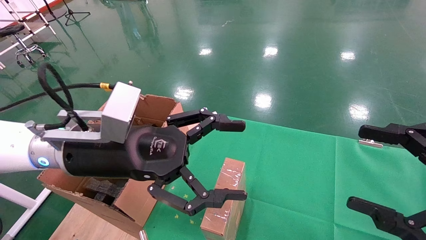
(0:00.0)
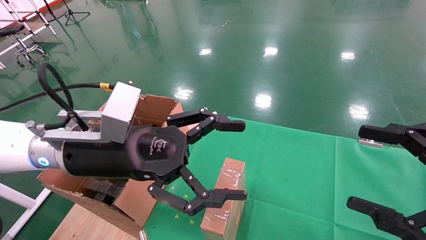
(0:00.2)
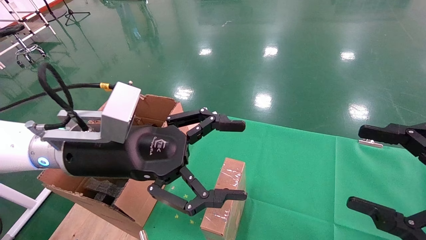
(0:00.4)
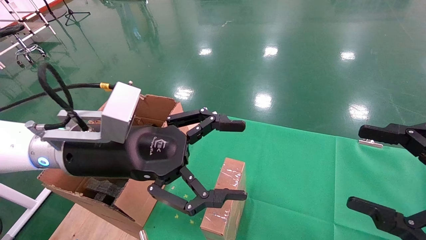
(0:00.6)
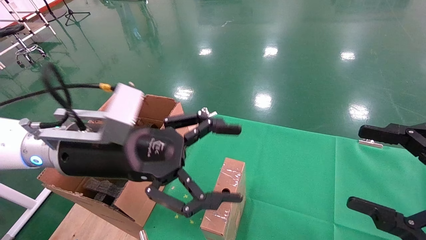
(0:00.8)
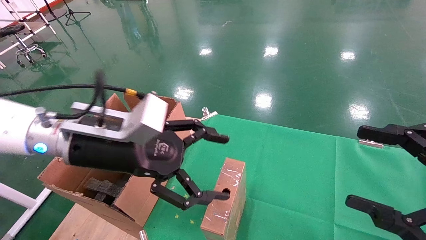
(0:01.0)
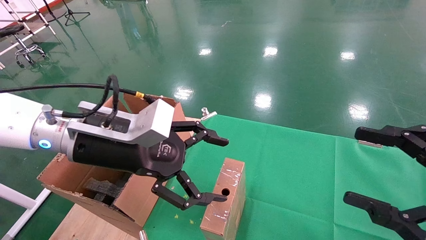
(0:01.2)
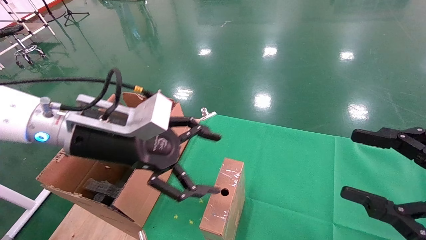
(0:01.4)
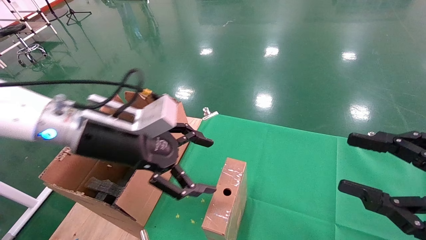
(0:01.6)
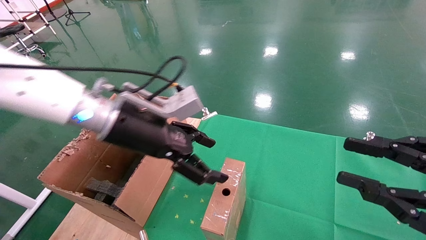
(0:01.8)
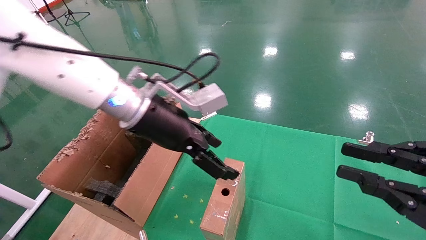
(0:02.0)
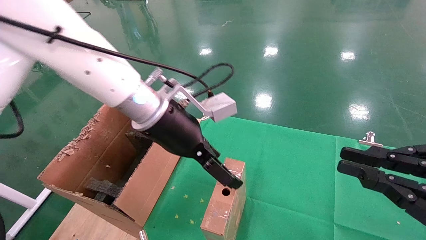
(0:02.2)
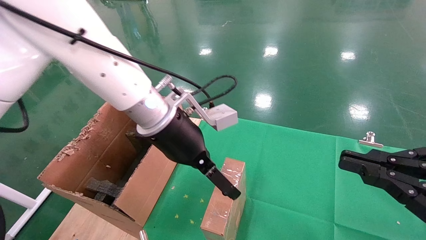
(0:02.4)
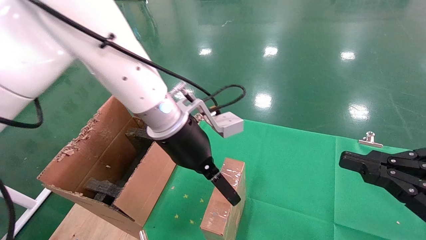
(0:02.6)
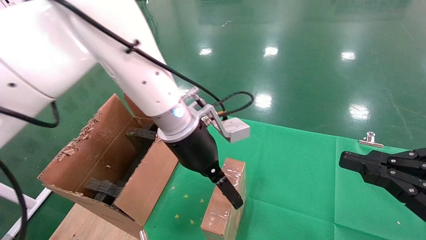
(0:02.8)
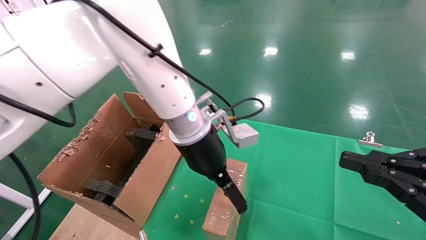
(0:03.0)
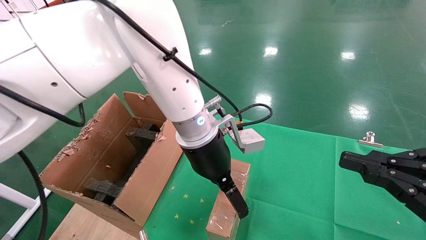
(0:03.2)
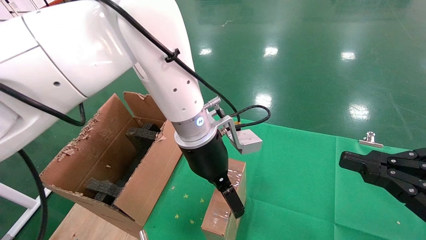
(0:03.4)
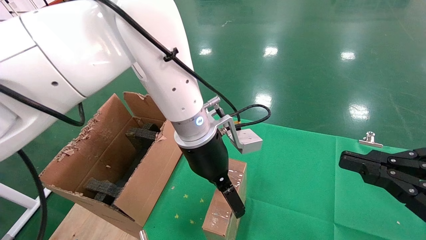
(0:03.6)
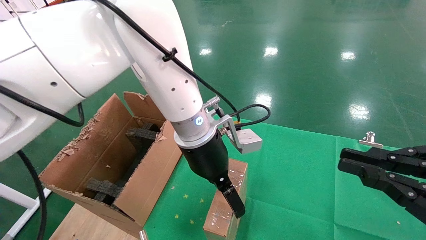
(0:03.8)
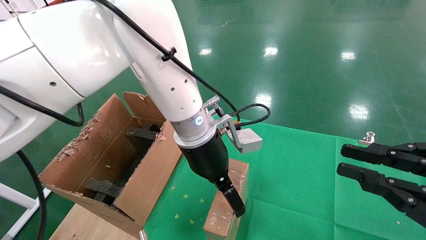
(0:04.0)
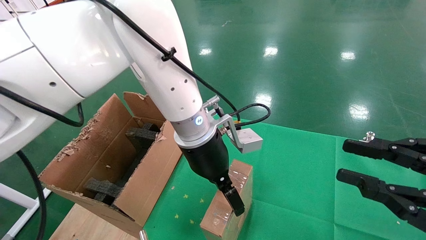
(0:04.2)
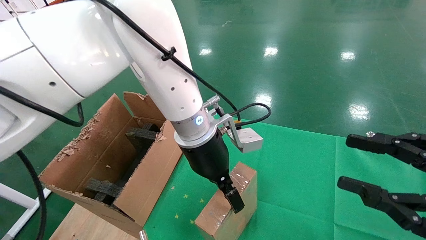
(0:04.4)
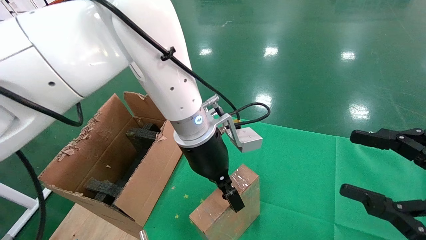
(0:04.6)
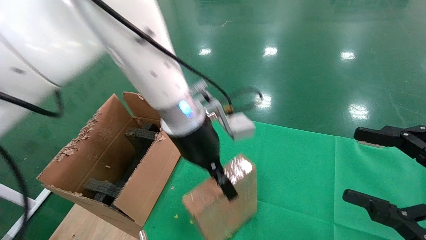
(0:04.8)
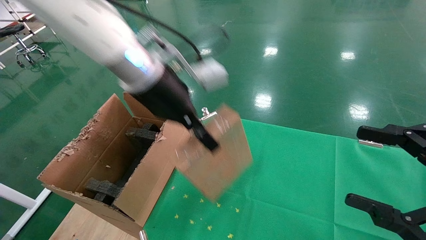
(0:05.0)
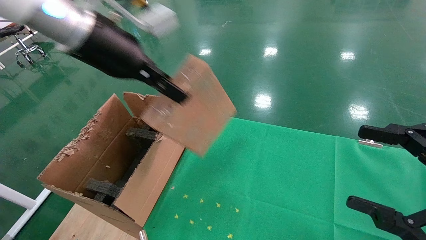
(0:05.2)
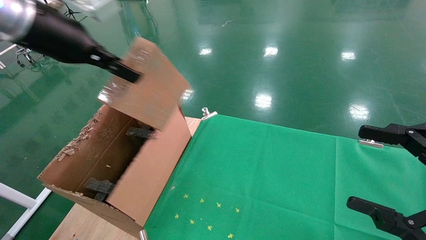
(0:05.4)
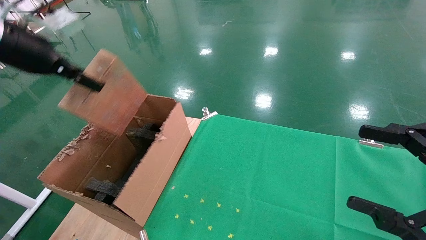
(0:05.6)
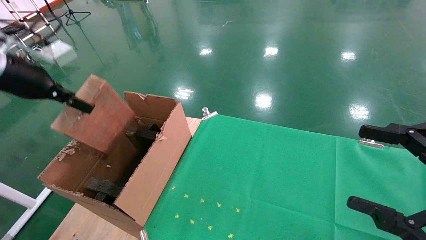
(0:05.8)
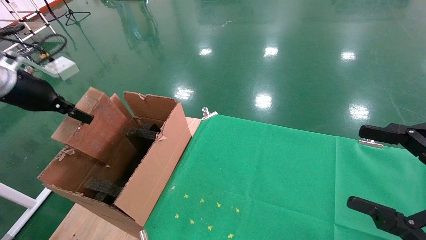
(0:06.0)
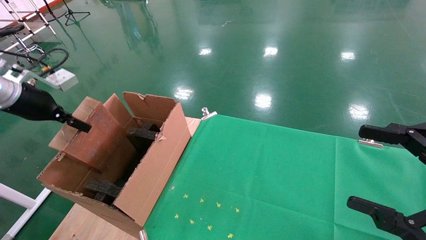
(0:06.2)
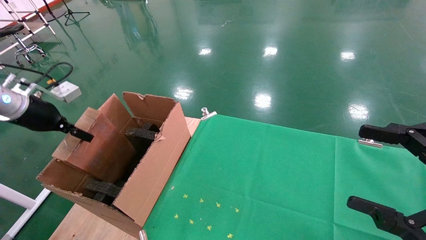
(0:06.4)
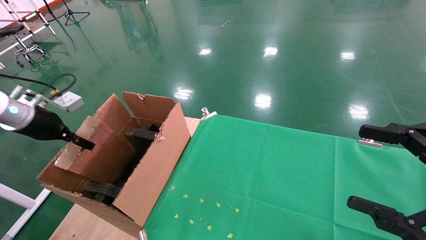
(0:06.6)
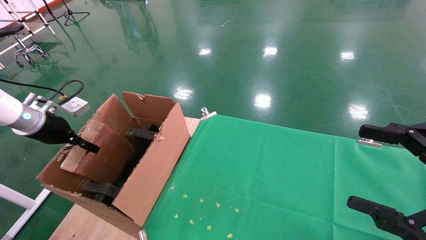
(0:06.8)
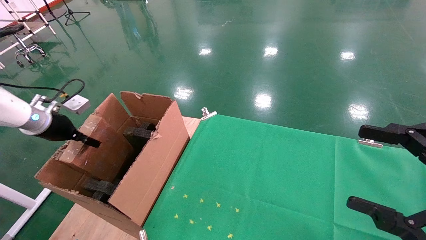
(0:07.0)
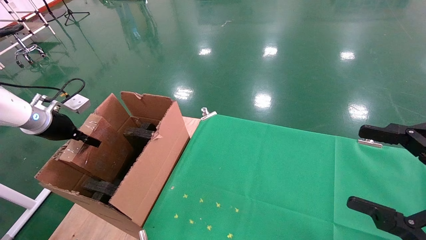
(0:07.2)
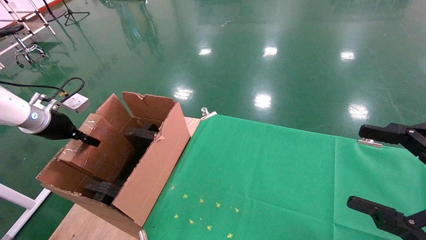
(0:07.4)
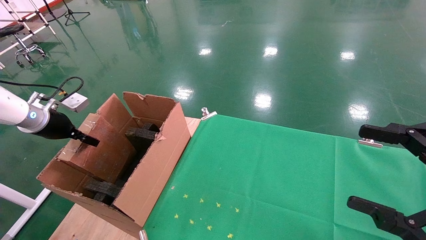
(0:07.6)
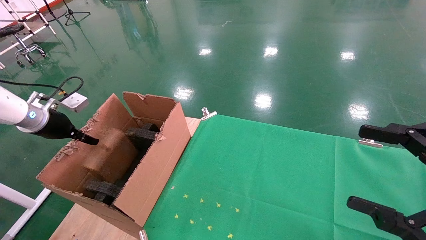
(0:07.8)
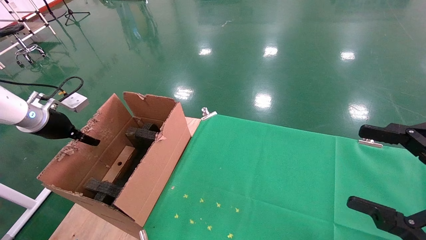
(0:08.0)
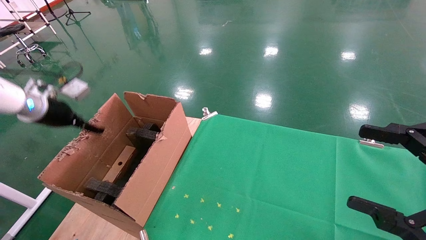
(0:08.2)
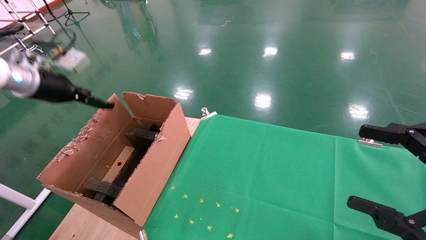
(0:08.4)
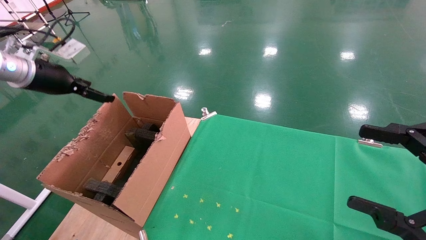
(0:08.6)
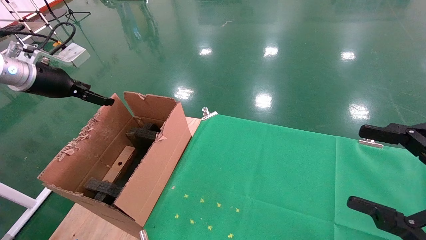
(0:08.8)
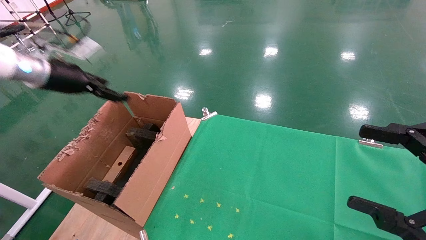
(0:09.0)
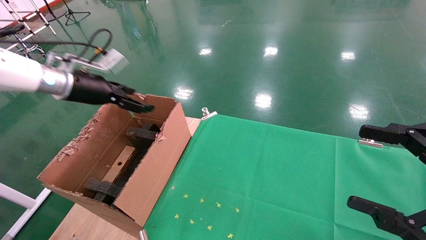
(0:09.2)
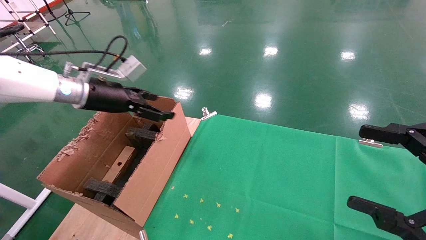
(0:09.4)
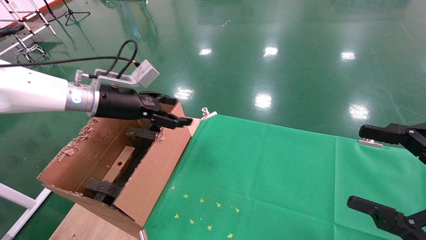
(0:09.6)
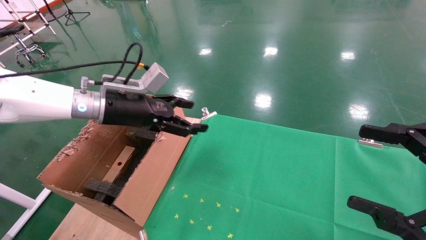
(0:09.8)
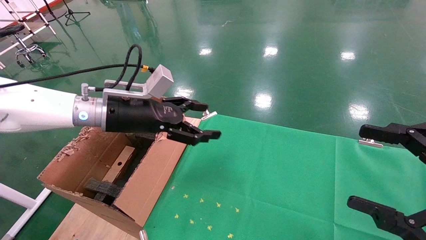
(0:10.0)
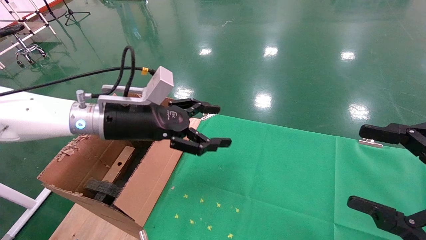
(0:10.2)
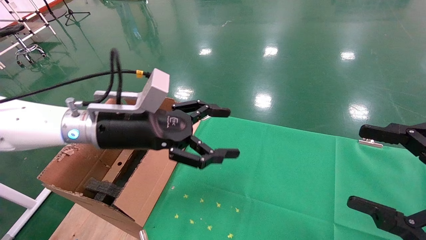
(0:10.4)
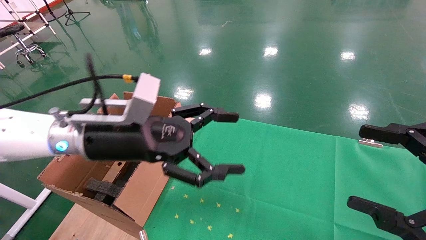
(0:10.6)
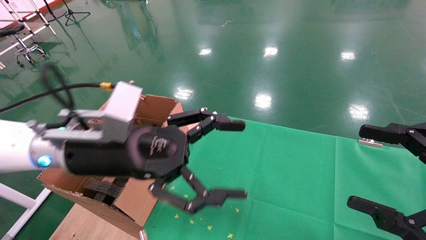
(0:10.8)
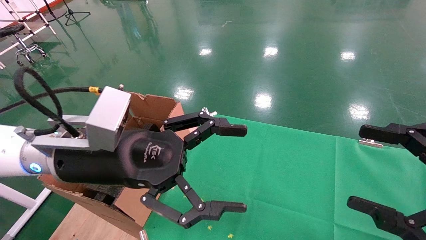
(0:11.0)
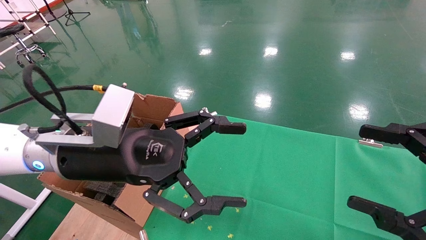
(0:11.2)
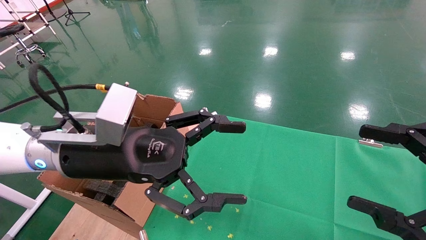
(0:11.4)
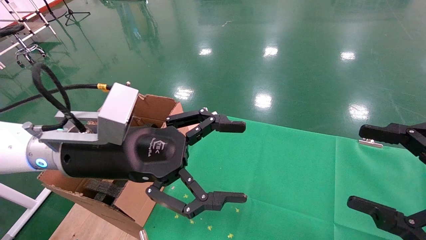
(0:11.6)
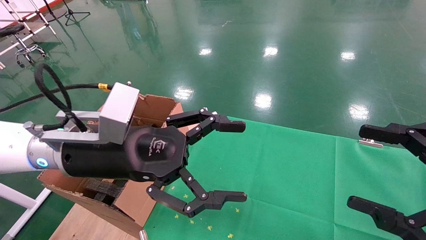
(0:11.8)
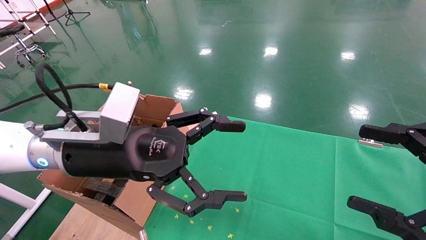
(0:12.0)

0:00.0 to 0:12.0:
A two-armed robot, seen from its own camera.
Task of the whole recording: using a robotic arm to pick up a cardboard box and palace it the carton.
Step, 0:00.8 to 0:04.4: Pick up the mouse and the power cord paper box.
Step, 0:04.6 to 0:08.0: Place the mouse and the power cord paper box into the container.
0:00.0 to 0:01.6: The right gripper closes.
0:01.6 to 0:03.0: The right gripper closes. The left gripper goes approximately 15 cm to the right and forward.
0:03.0 to 0:04.4: The left gripper closes; the right gripper opens up.
0:04.4 to 0:06.0: The left gripper moves to the left, about 40 cm, and closes its fingers, while the right gripper opens.
0:06.0 to 0:07.6: The left gripper goes roughly 10 cm downward.
0:07.6 to 0:09.0: The left gripper is displaced upward and to the right by approximately 10 cm, and opens up.
0:09.0 to 0:10.4: The left gripper travels to the right by some 20 cm.
0:10.4 to 0:12.0: The left gripper goes approximately 5 cm backward.

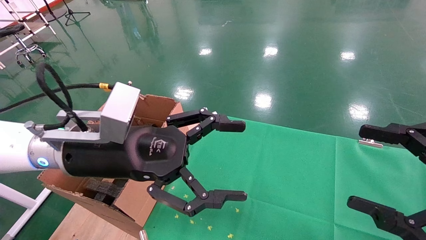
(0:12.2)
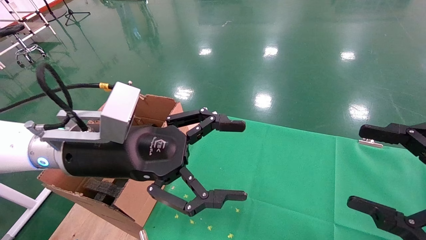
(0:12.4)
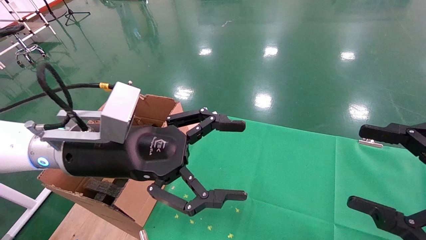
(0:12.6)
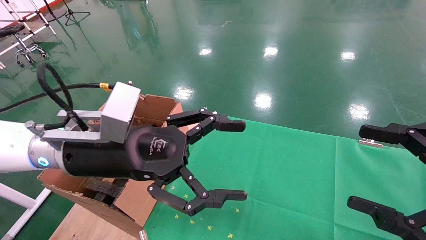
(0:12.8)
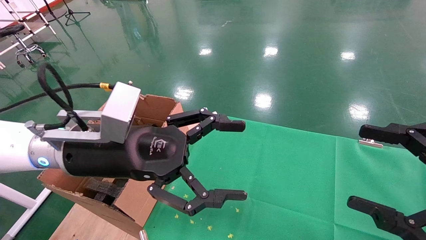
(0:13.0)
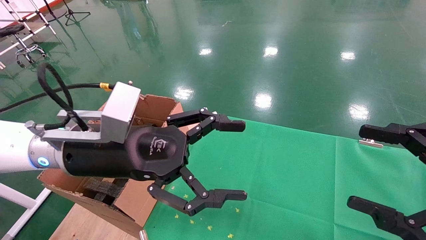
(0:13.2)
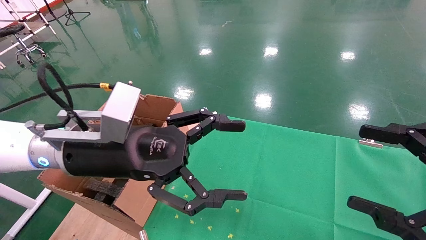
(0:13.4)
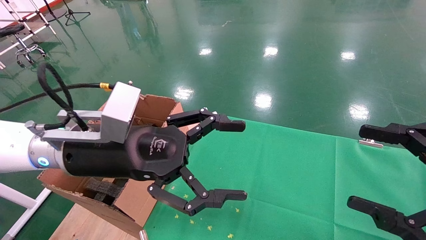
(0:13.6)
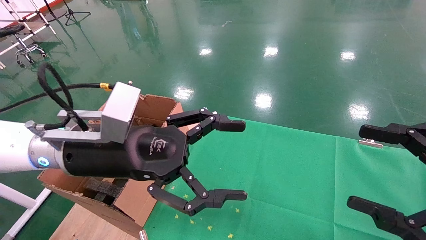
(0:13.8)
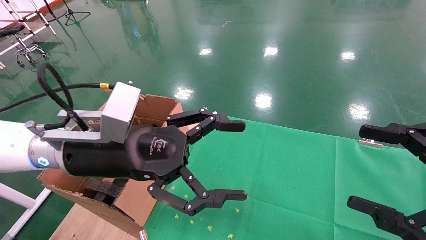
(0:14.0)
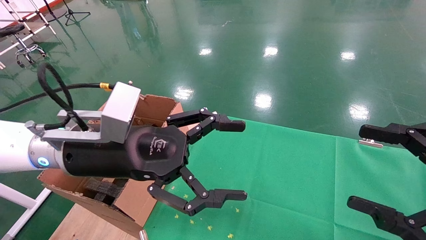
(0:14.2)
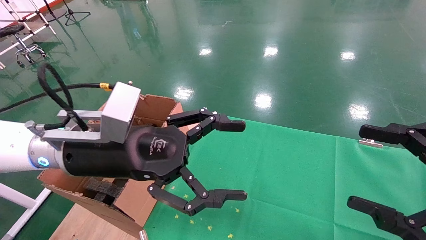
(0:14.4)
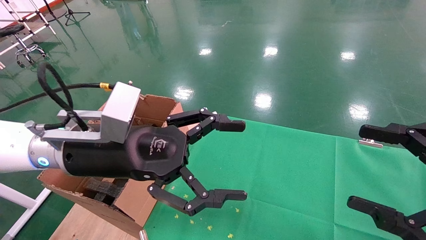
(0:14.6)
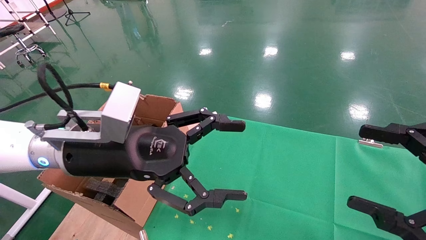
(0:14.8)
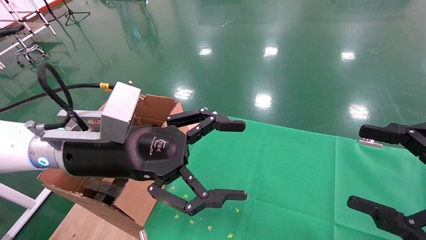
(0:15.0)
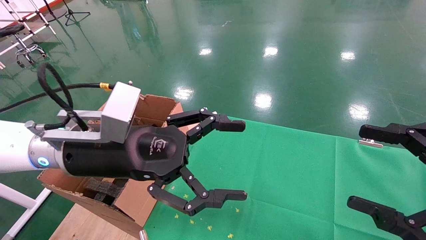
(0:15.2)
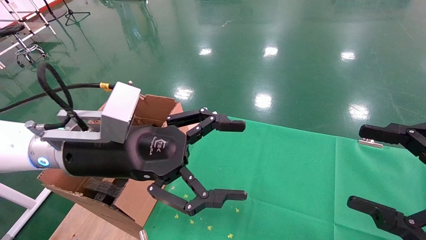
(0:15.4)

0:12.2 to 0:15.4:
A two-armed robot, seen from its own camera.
Task of the whole recording: using a robotic arm to pick up a cardboard box and palace it the carton.
0:12.2 to 0:15.4: Neither gripper changes place.
